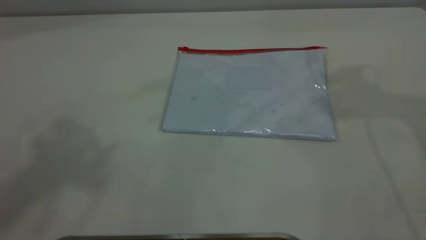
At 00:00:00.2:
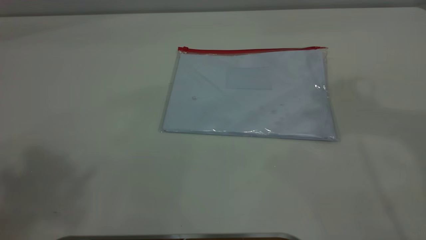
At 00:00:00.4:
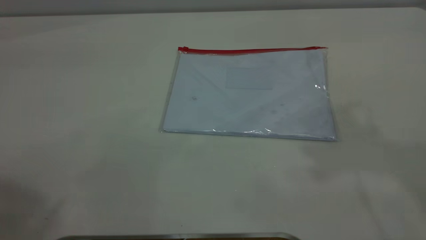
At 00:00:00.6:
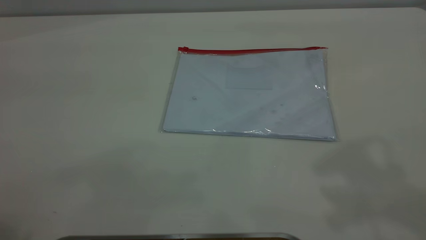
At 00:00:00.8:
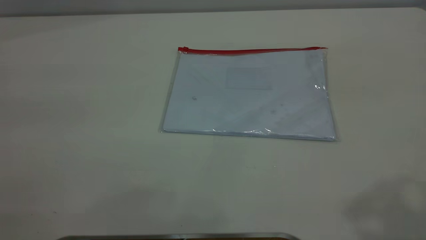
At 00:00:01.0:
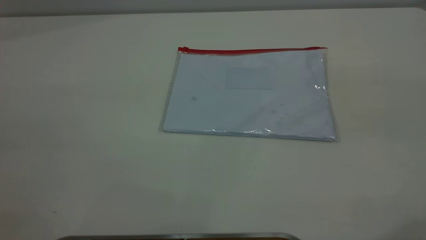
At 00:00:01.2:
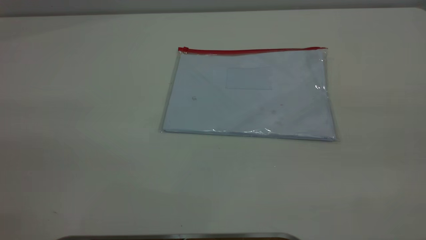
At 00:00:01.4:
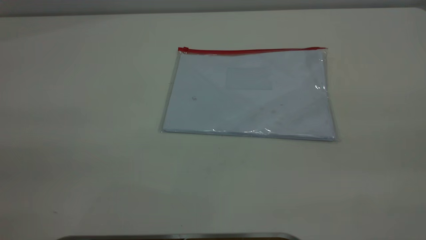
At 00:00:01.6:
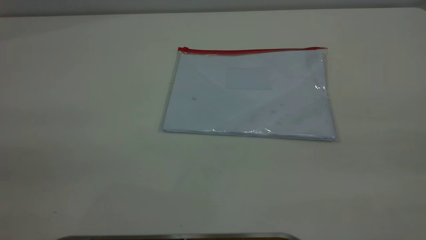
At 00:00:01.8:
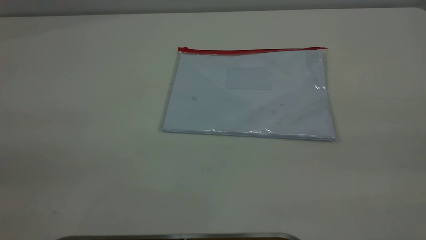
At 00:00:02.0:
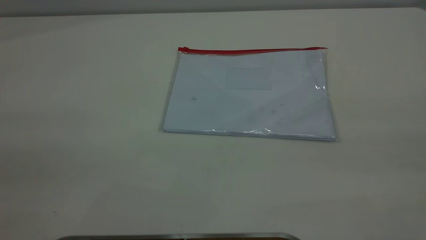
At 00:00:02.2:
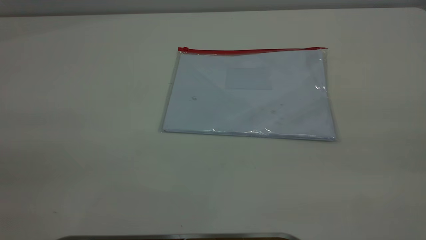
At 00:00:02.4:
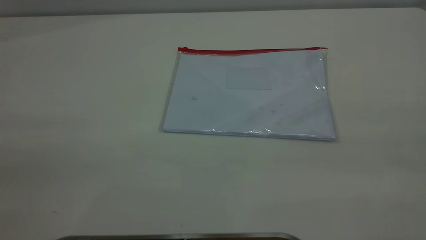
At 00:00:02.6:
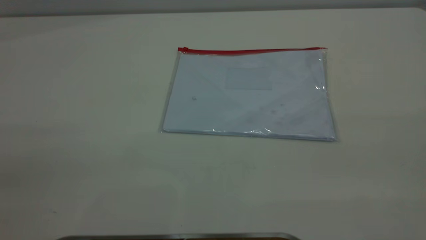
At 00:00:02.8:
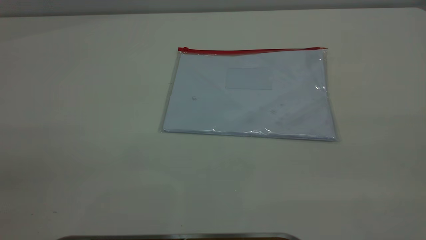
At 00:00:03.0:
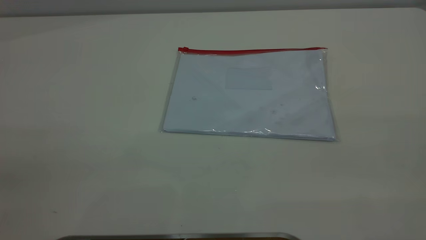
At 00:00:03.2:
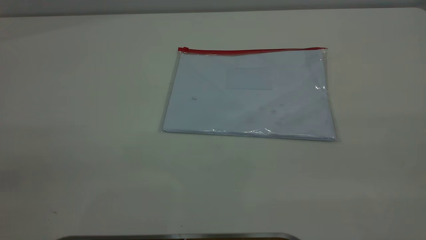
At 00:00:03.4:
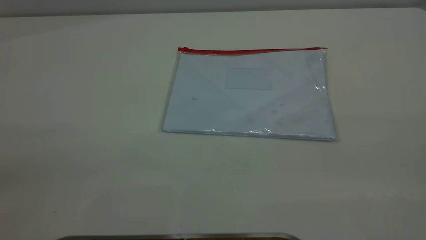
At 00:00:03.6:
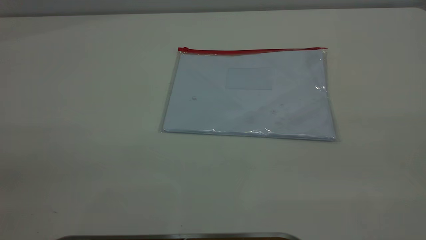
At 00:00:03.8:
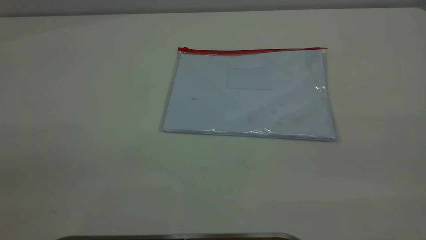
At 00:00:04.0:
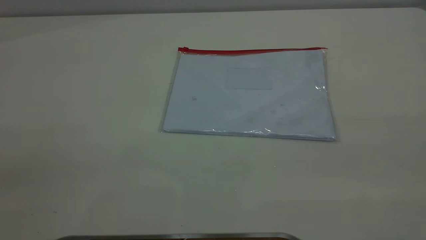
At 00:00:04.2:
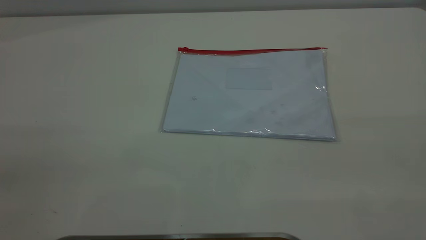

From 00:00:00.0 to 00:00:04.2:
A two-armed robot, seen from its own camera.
From 00:00:02.8 to 00:00:04.2: Both grippers stay about where they are.

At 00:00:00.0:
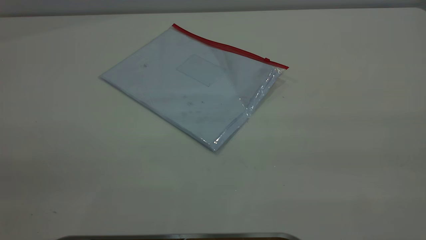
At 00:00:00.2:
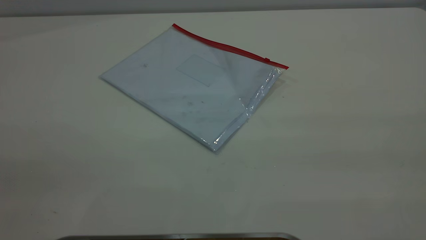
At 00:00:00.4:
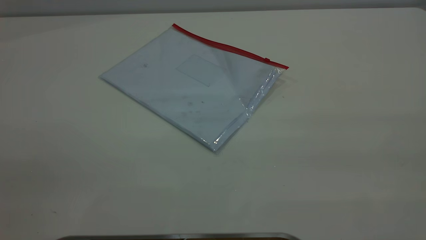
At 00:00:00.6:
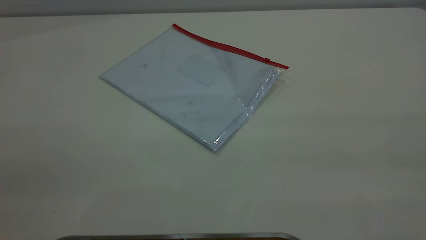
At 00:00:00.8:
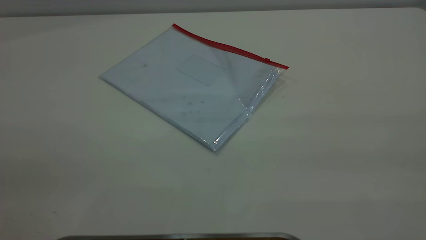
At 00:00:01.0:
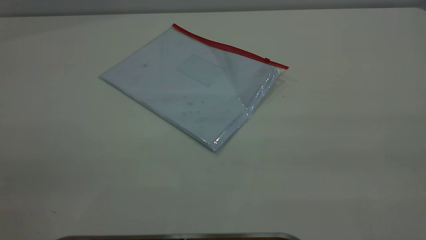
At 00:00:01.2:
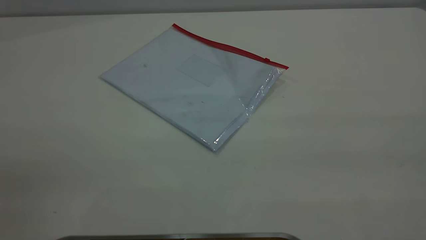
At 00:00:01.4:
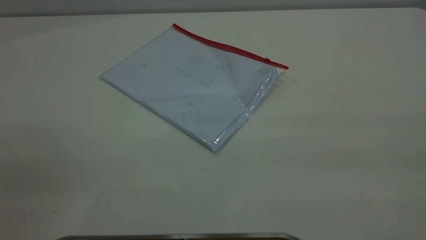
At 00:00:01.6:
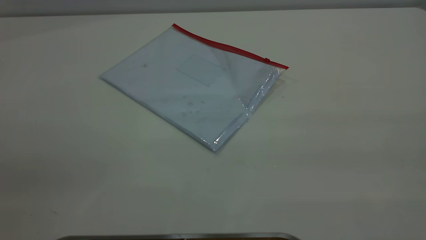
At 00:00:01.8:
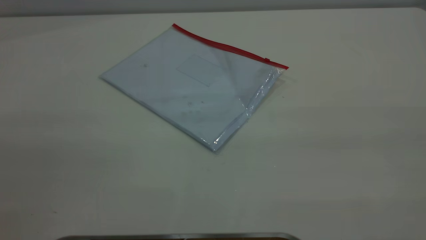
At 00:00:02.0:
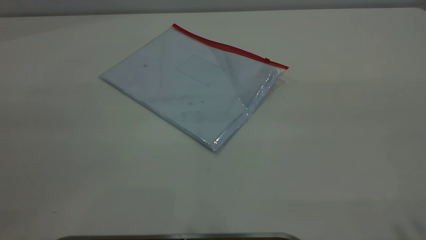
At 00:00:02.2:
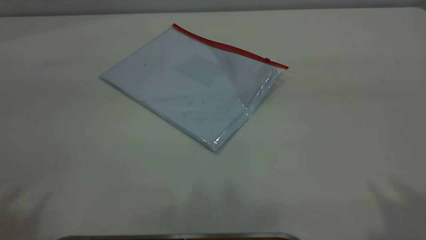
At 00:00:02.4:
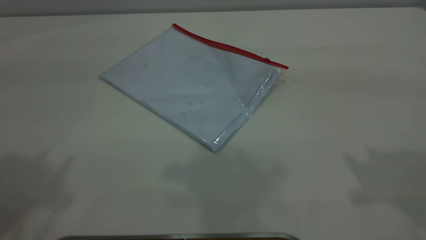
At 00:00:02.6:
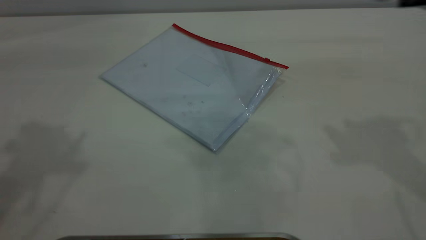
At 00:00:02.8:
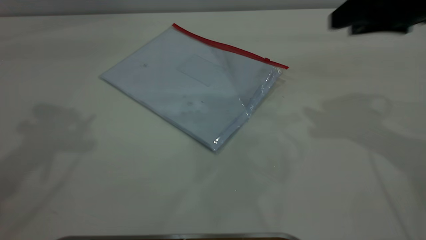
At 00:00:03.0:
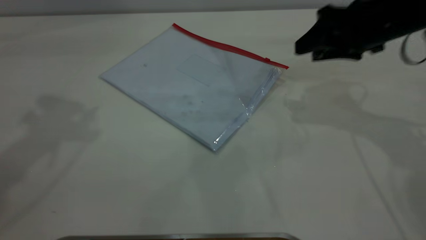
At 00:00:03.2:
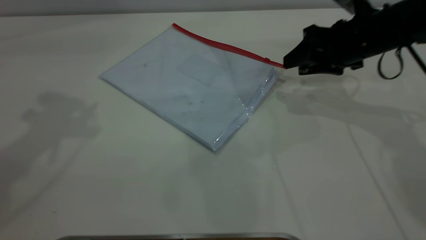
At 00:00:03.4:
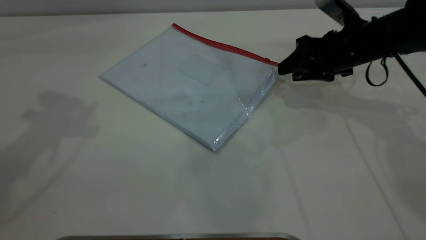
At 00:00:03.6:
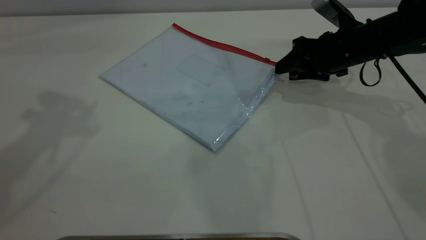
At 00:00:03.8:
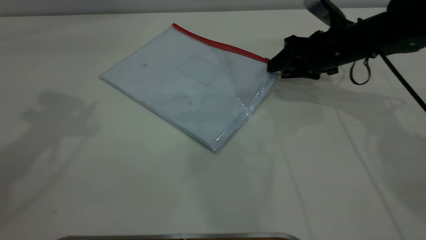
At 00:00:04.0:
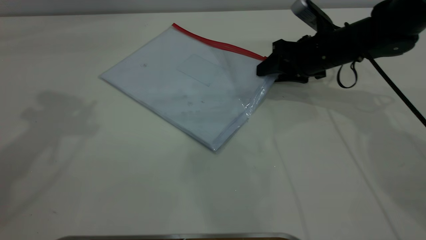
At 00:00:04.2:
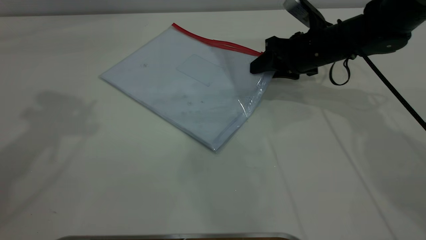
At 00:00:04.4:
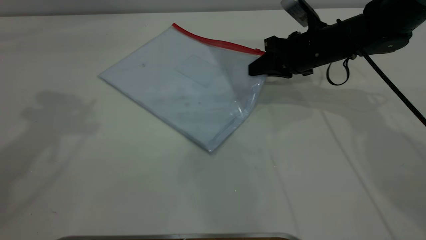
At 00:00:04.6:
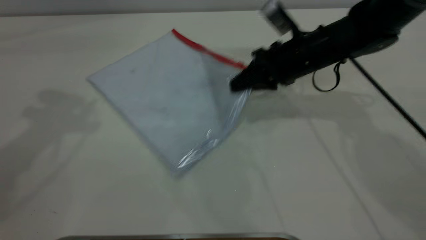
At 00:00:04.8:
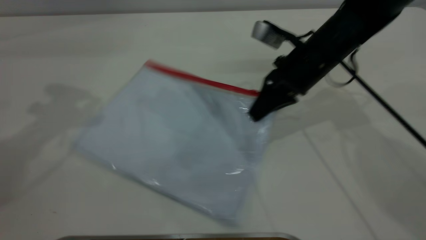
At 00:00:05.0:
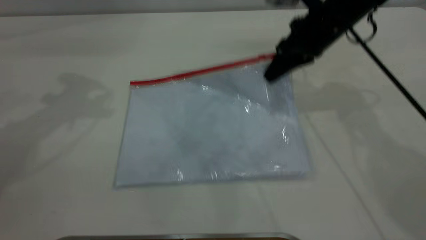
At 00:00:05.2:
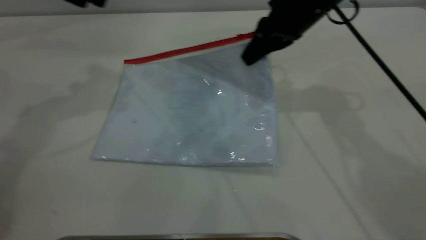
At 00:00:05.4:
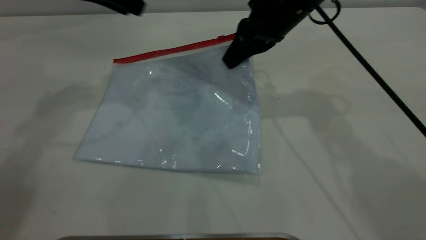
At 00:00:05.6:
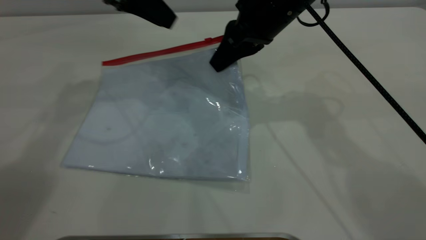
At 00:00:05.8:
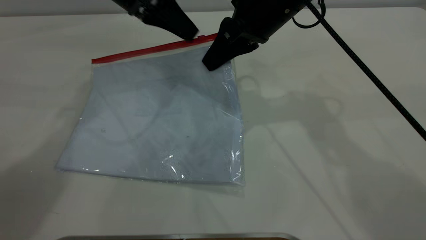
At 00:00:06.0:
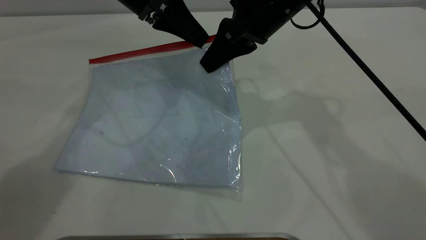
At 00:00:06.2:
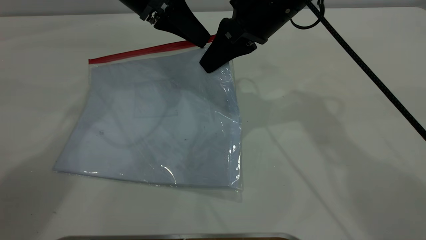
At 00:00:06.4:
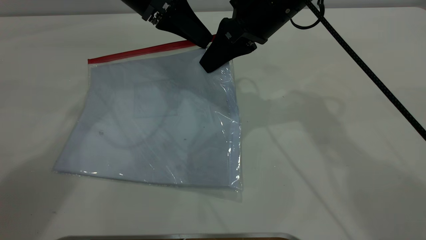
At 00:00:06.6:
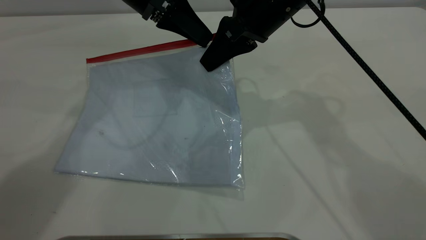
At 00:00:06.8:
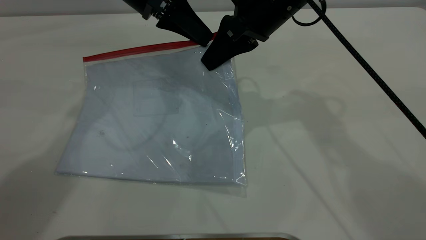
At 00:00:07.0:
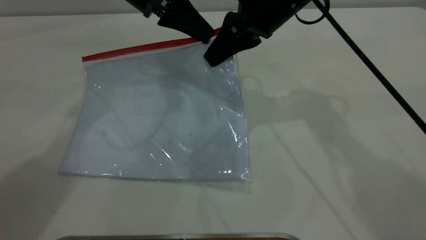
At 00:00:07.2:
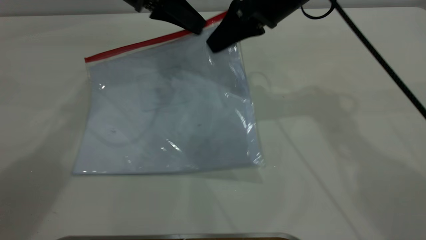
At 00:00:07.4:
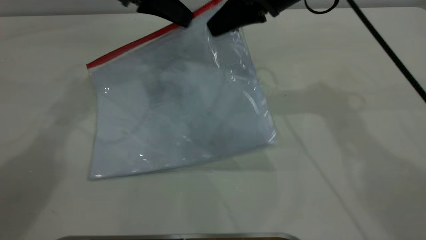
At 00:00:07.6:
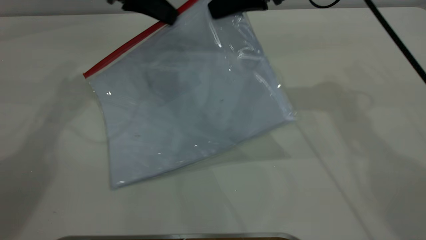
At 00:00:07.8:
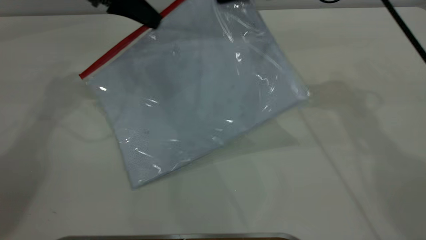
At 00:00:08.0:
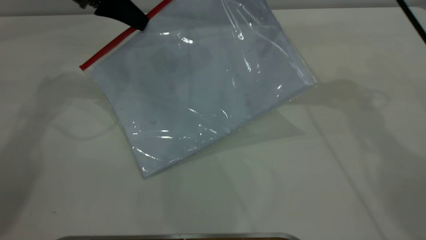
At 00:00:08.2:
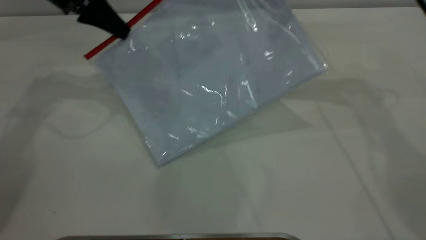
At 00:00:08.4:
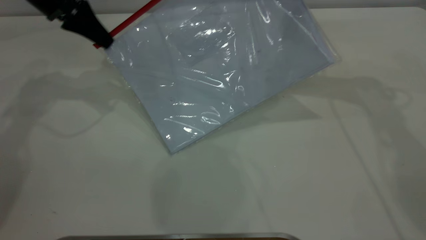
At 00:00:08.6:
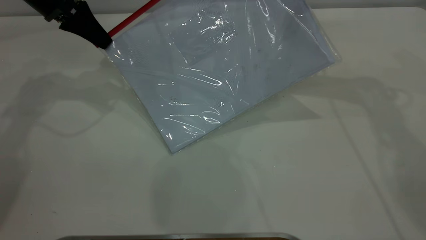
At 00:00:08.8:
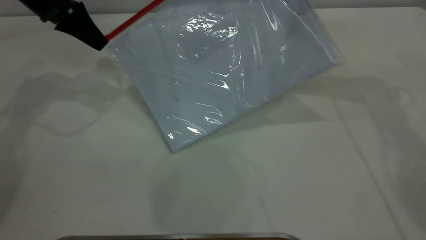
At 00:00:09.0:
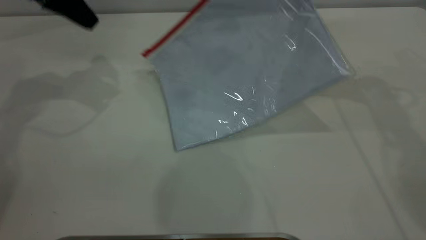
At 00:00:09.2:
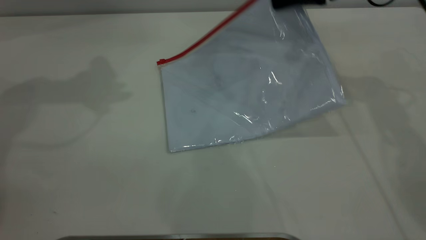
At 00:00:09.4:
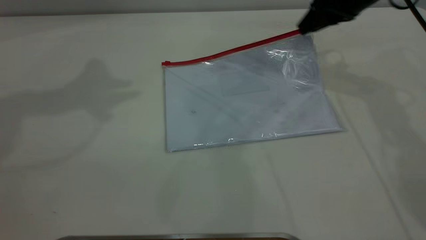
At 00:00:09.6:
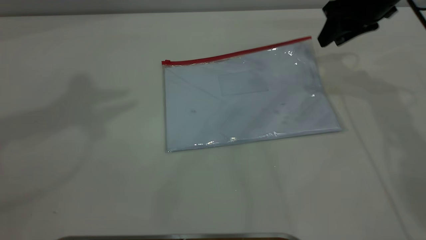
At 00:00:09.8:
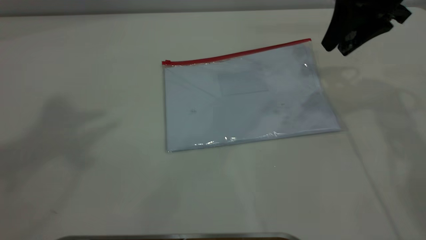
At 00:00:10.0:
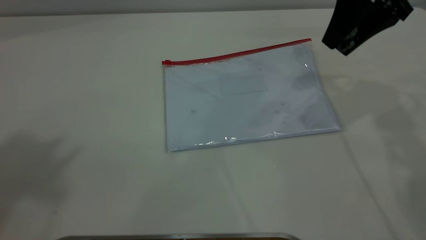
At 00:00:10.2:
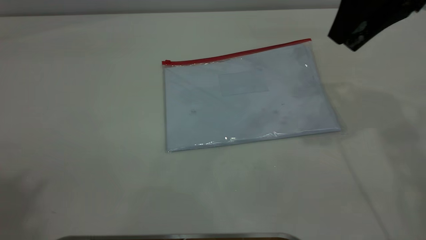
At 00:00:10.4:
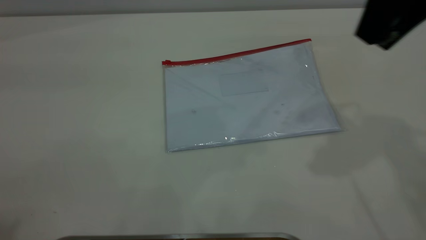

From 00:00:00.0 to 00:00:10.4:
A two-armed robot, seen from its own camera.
Step, from 00:00:00.0 to 00:00:05.0: Pick up the transparent plastic bag with the right gripper.
Step, from 00:00:05.4 to 00:00:08.8: Pulling up the zipper on the transparent plastic bag with the left gripper to close it.
From 00:00:00.0 to 00:00:01.4: Both grippers stay put.
From 00:00:01.4 to 00:00:03.0: The right gripper travels forward and downward by roughly 40 cm, and opens up.
From 00:00:03.0 to 00:00:04.4: The right gripper travels downward, forward and to the left by approximately 10 cm, and closes its fingers.
From 00:00:04.4 to 00:00:06.0: The right gripper travels upward and to the left by approximately 15 cm. The left gripper shifts approximately 25 cm downward, to the right and forward.
From 00:00:06.0 to 00:00:07.4: The left gripper closes its fingers.
From 00:00:07.4 to 00:00:09.0: The left gripper moves to the left, roughly 10 cm, and opens its fingers. Meanwhile the right gripper travels to the right by about 10 cm.
From 00:00:09.0 to 00:00:10.4: The left gripper moves backward and upward, approximately 40 cm; the right gripper moves backward and upward, some 15 cm, and opens.

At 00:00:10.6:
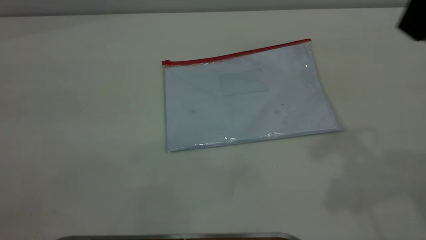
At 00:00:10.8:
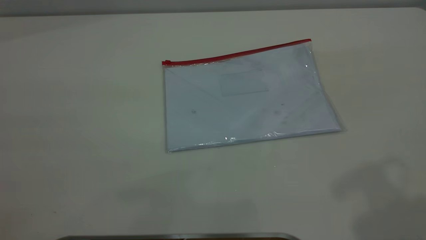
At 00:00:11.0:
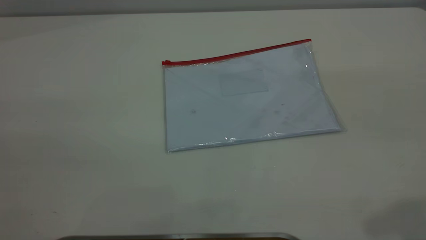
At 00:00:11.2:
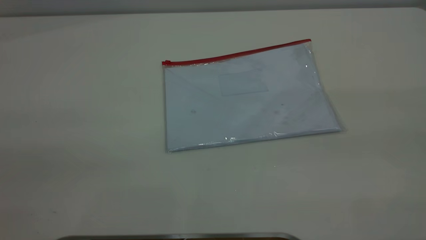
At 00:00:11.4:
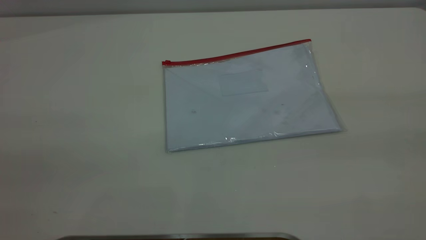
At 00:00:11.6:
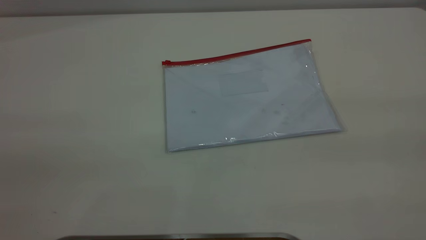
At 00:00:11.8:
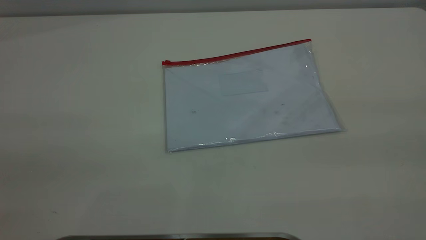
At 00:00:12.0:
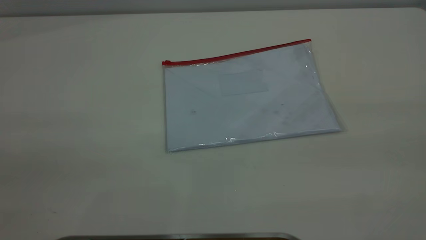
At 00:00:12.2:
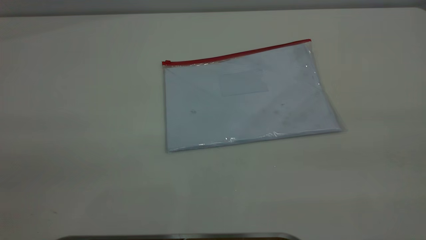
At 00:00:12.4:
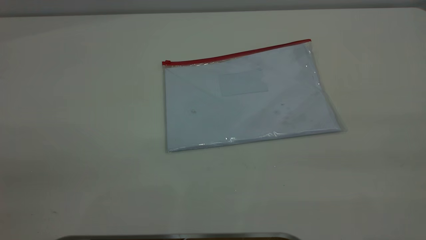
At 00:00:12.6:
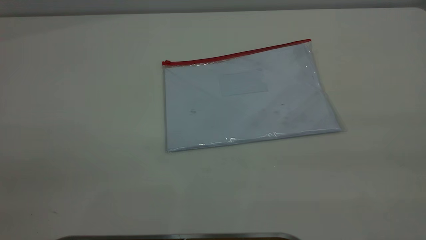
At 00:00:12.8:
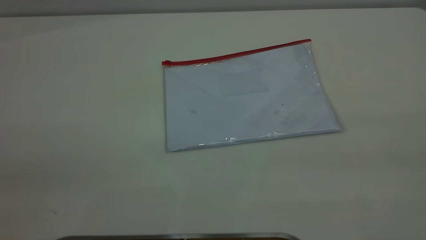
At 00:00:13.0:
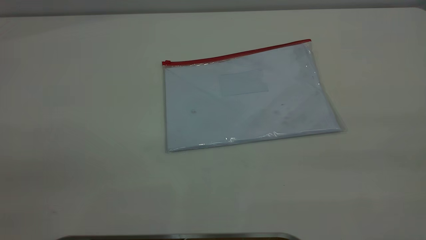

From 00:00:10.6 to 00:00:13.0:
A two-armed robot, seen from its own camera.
From 00:00:10.6 to 00:00:11.8: The right gripper is displaced backward by some 20 cm.
